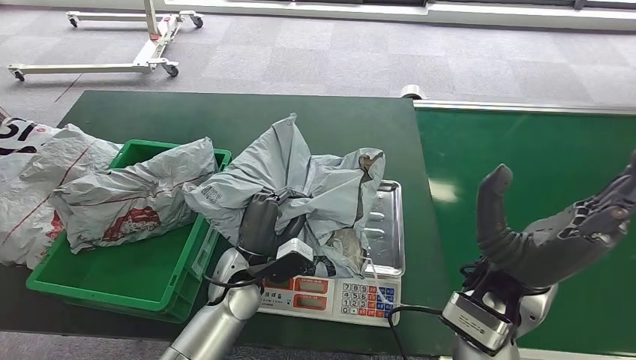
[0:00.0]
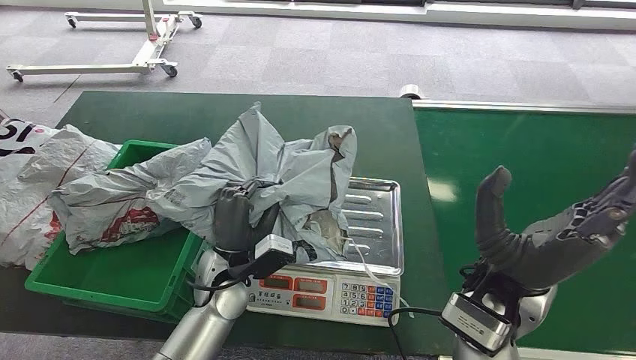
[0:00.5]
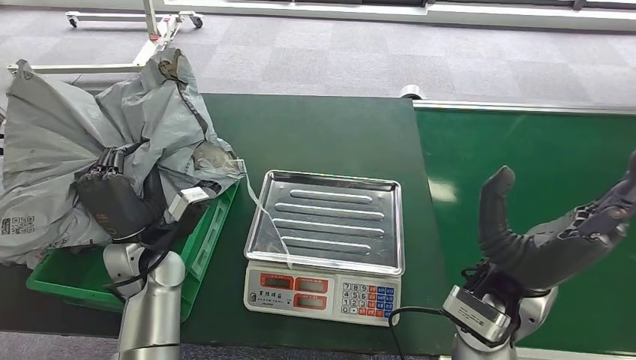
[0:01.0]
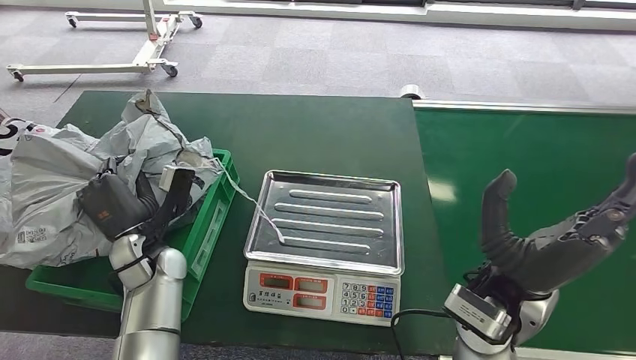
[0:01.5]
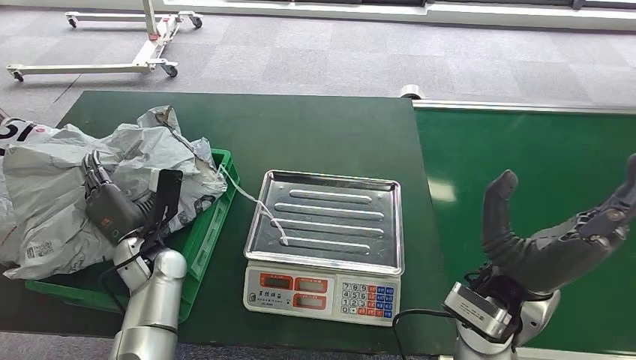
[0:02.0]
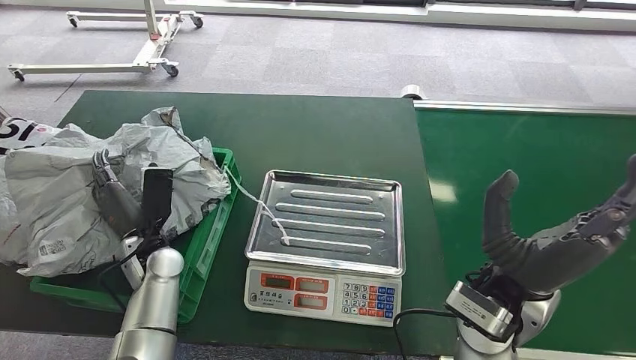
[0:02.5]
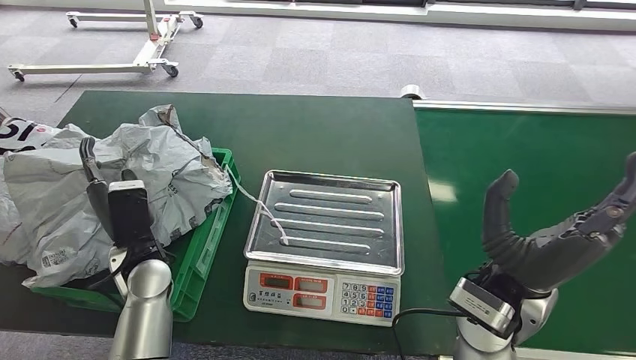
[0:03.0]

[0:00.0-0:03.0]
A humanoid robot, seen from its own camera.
Step, 0:01.0 to 0:03.0: Place the package into the parcel locker.
